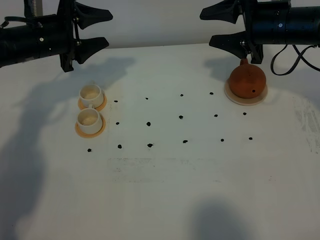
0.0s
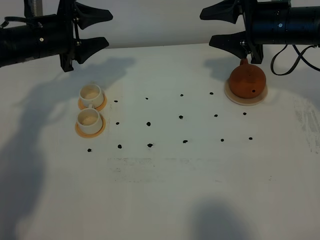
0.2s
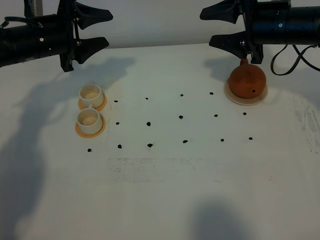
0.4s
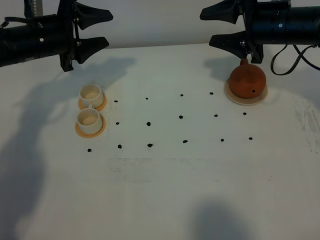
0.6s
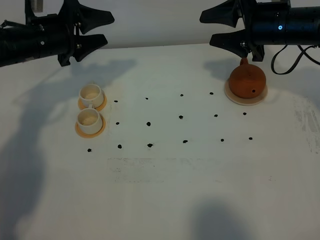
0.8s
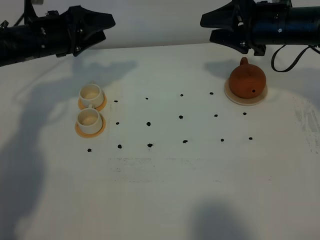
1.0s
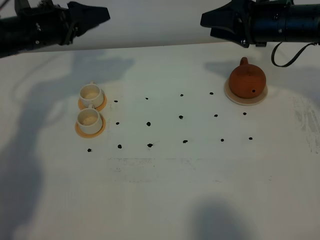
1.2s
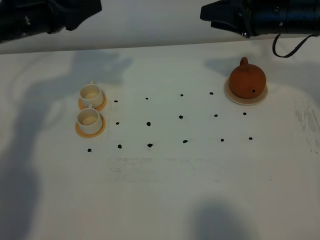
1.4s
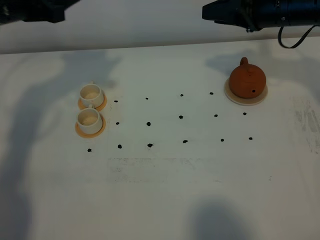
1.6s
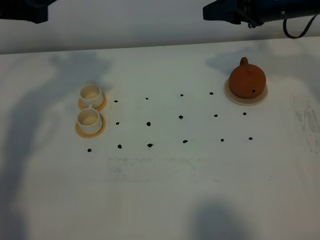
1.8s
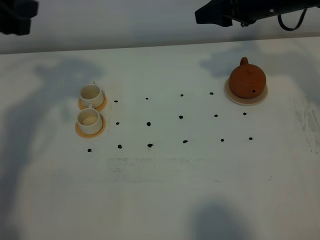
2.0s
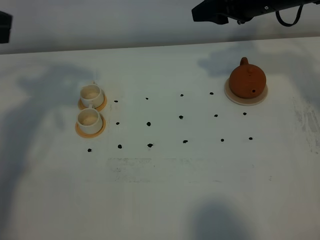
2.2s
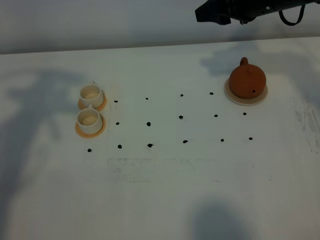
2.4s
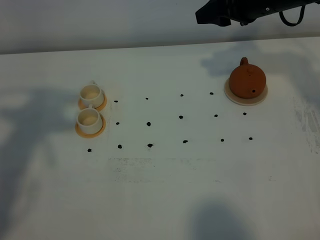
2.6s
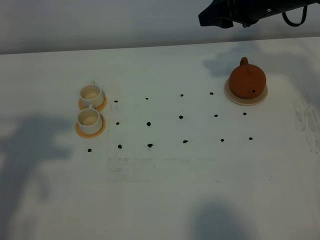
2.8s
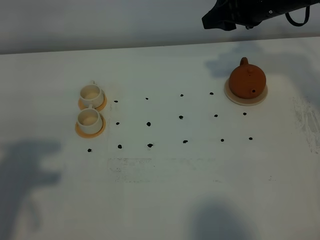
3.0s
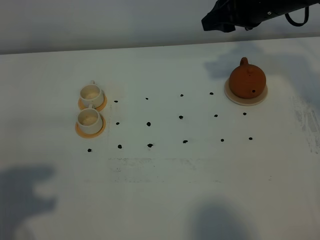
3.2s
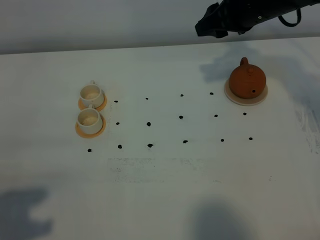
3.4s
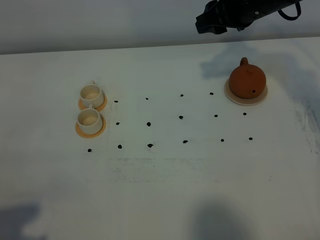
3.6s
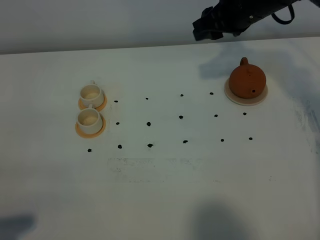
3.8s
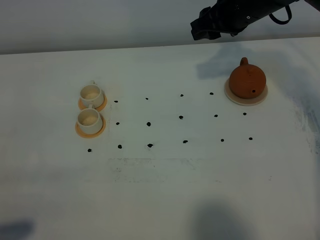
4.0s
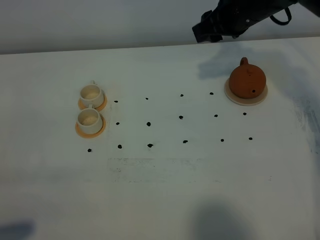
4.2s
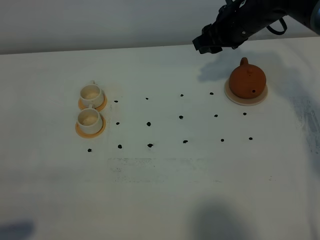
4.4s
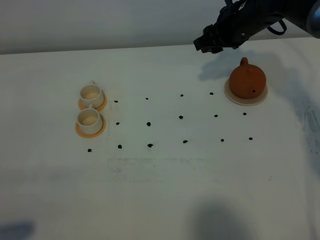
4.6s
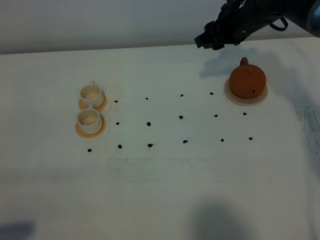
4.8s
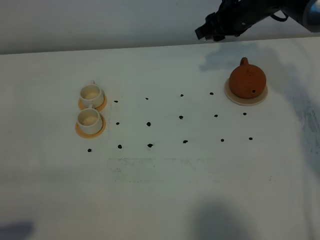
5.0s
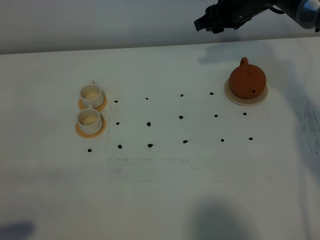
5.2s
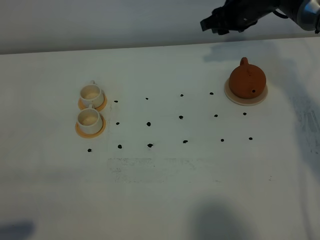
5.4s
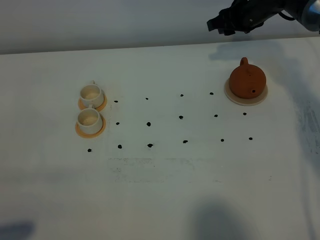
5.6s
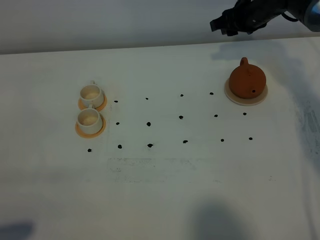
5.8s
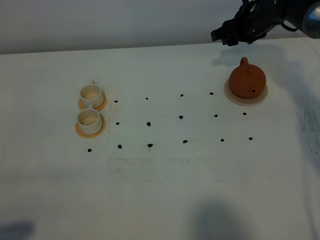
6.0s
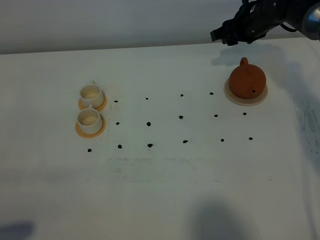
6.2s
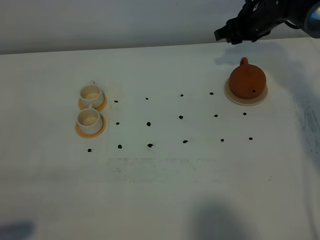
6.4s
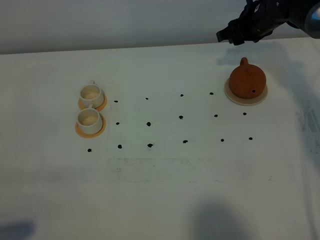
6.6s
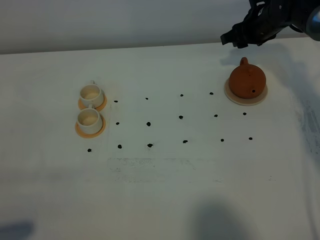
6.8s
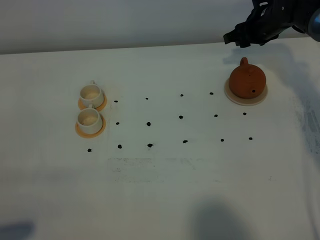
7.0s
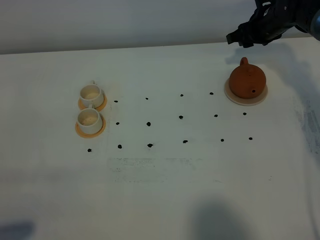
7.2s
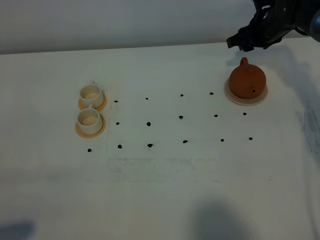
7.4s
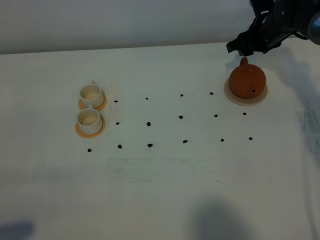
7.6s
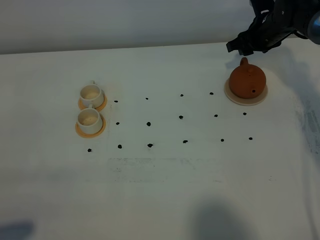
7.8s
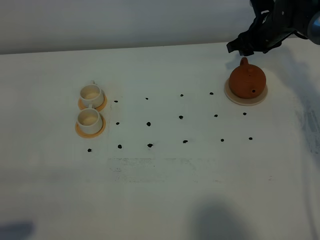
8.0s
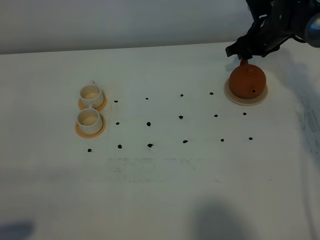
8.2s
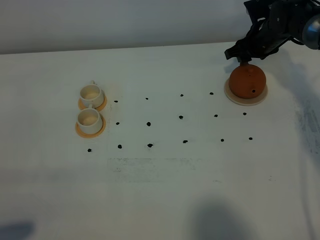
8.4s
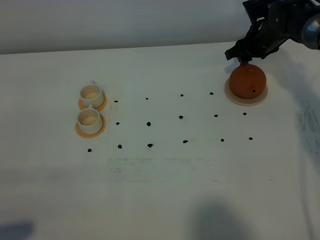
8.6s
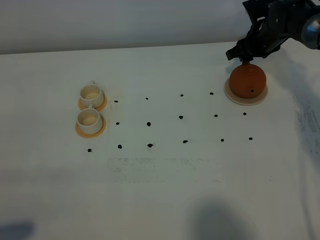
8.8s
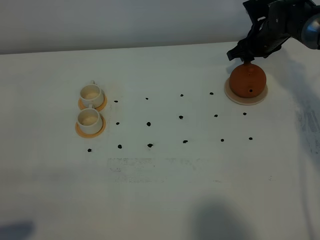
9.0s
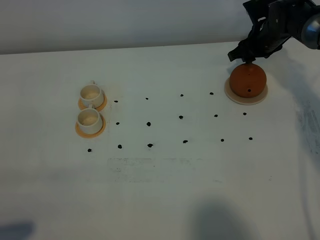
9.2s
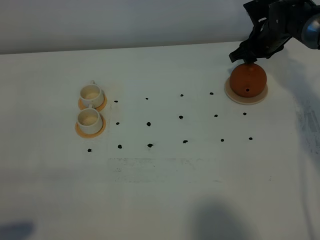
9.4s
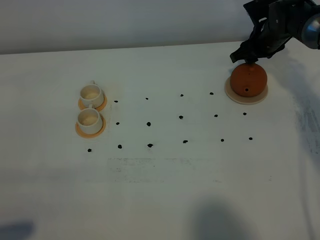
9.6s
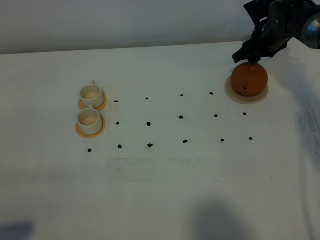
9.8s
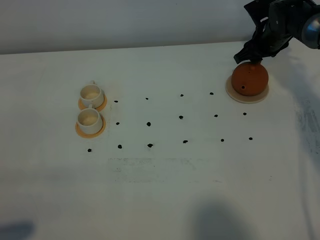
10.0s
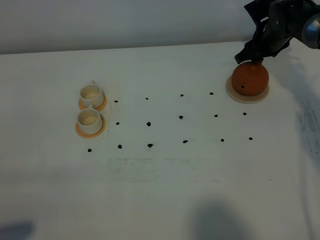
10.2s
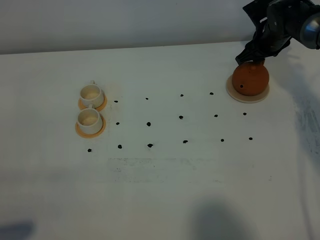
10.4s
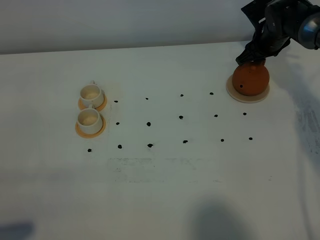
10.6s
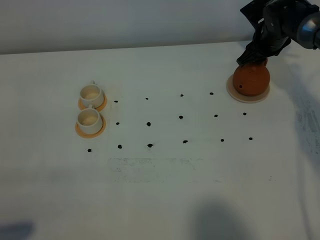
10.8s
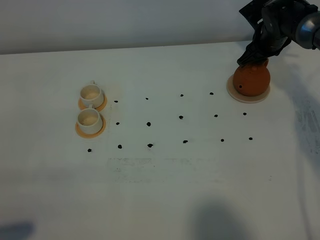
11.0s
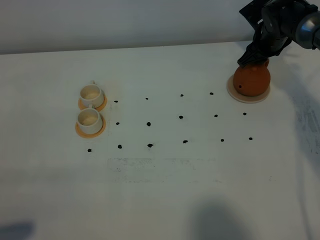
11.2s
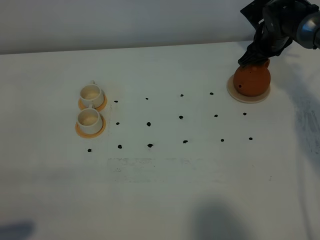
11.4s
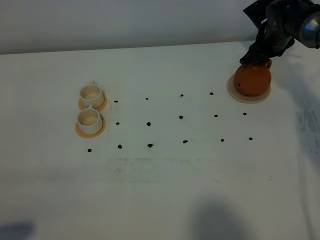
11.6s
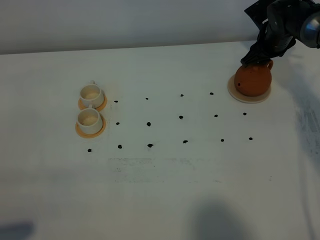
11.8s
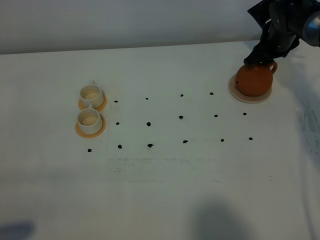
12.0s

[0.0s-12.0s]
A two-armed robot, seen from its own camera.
Task of the whole recording: grasp the brown teapot and pour the tea into the two white teacups one by one, put the brown teapot back in its original place.
0.0s to 1.6s: The left gripper moves upward and backward, some 15 cm.
1.6s to 3.0s: The left gripper heads backward, covering roughly 25 cm, and closes its fingers.
3.0s to 4.4s: The left gripper travels backward and downward by some 15 cm. Meanwhile the right gripper shifts about 5 cm downward.
4.4s to 6.0s: The right gripper moves forward, roughly 5 cm.
6.0s to 9.0s: The grippers move only a little.
9.0s to 12.0s: The grippers stay close to where they were, moving slightly.

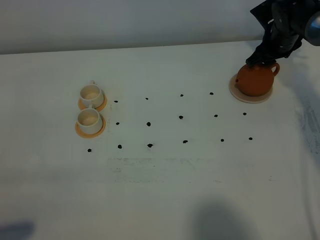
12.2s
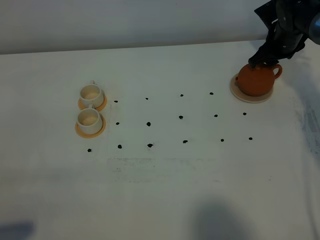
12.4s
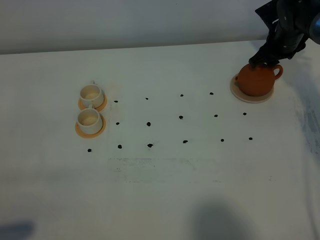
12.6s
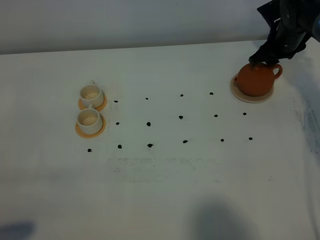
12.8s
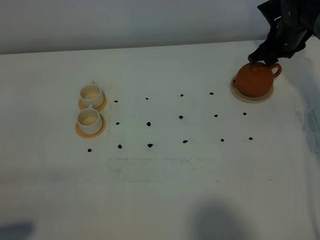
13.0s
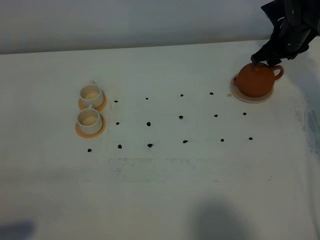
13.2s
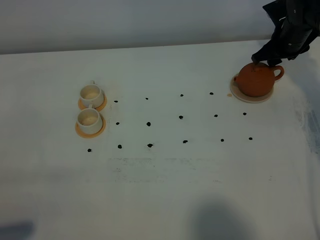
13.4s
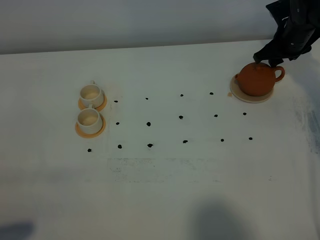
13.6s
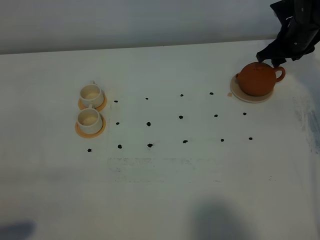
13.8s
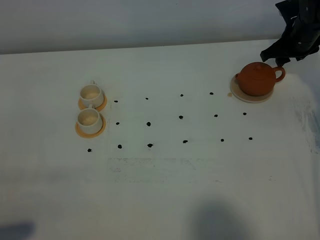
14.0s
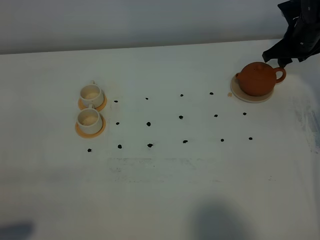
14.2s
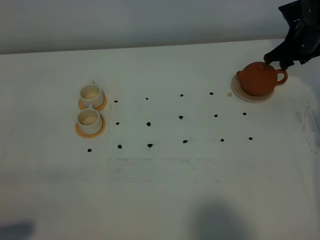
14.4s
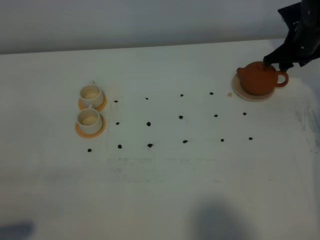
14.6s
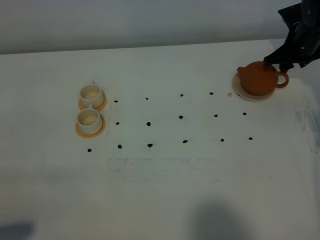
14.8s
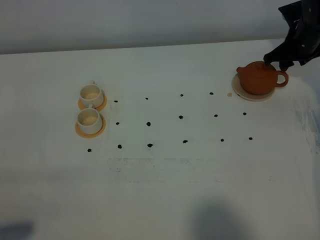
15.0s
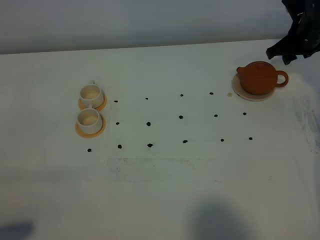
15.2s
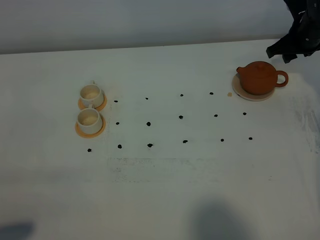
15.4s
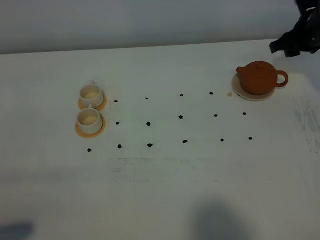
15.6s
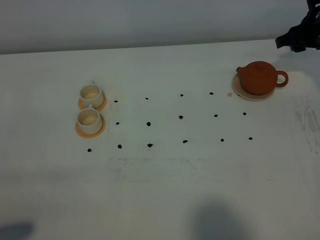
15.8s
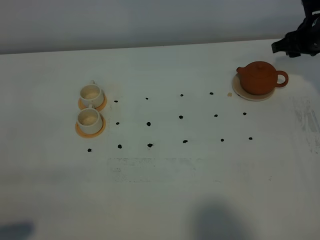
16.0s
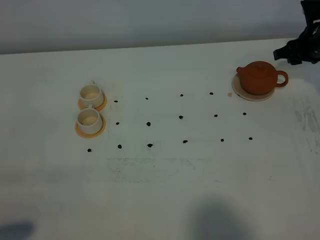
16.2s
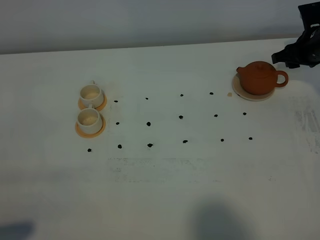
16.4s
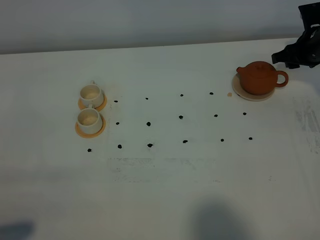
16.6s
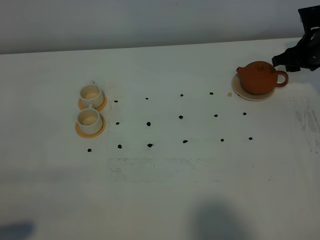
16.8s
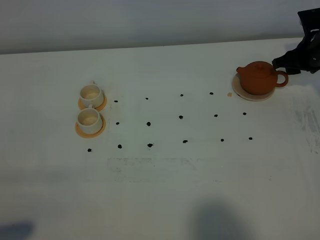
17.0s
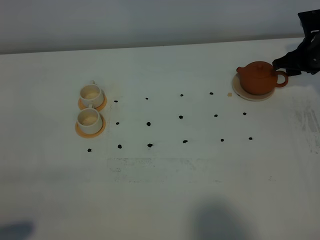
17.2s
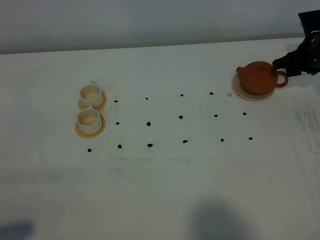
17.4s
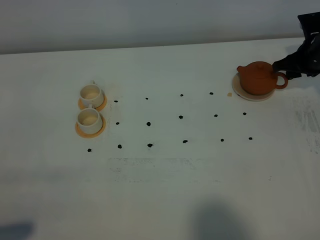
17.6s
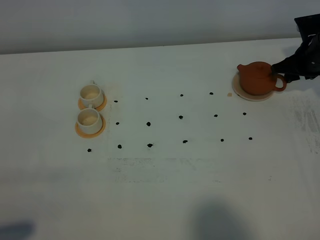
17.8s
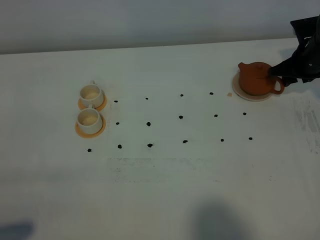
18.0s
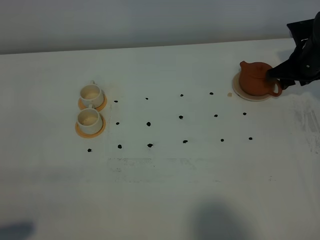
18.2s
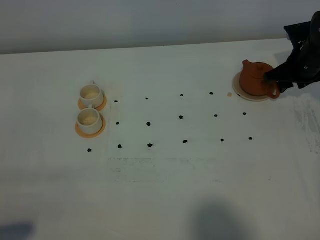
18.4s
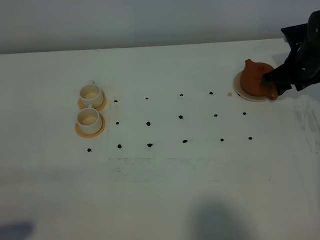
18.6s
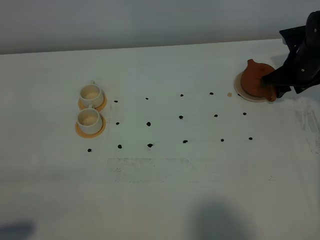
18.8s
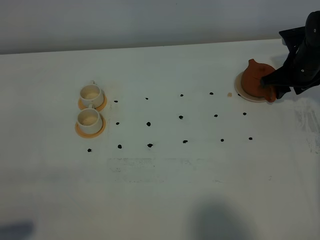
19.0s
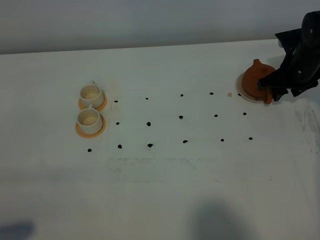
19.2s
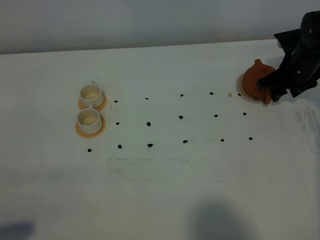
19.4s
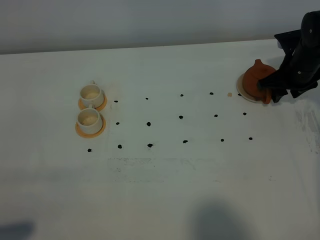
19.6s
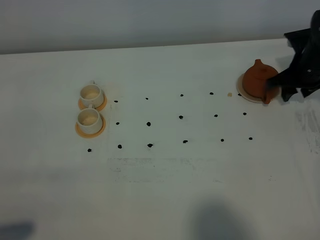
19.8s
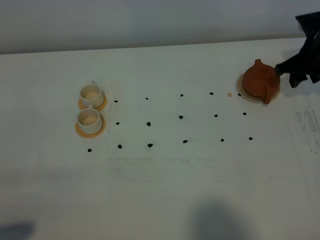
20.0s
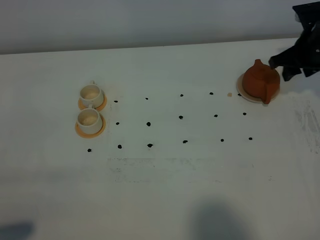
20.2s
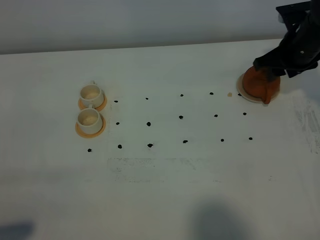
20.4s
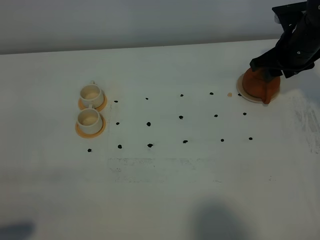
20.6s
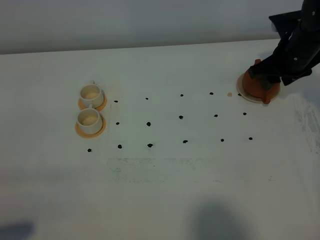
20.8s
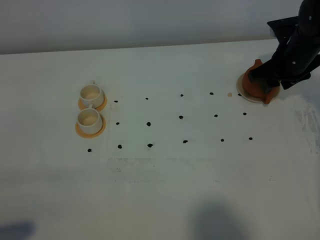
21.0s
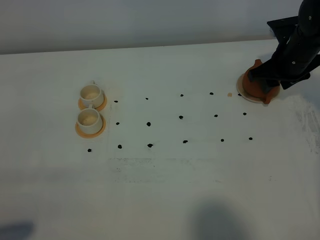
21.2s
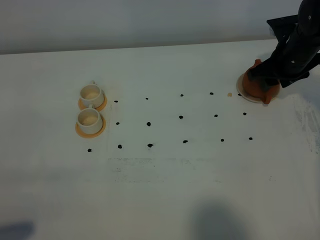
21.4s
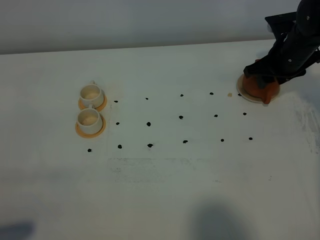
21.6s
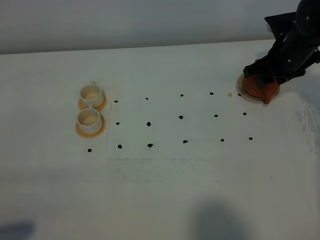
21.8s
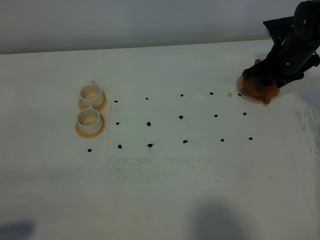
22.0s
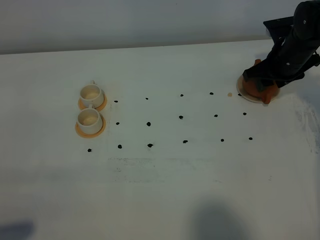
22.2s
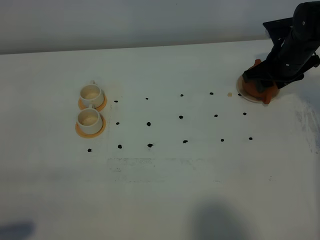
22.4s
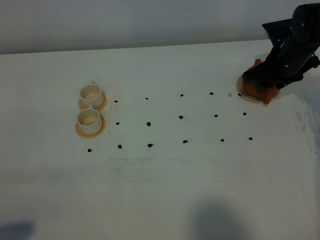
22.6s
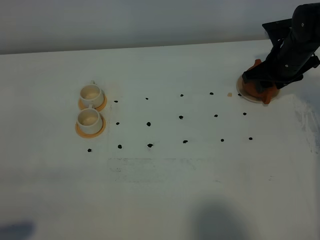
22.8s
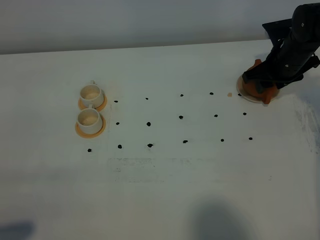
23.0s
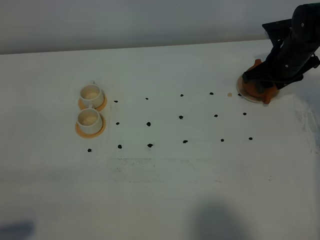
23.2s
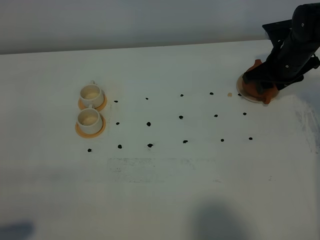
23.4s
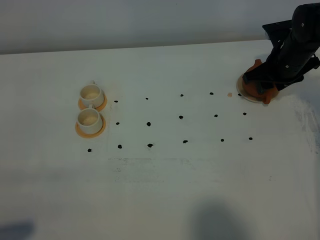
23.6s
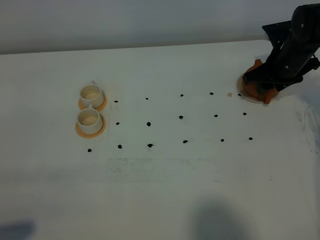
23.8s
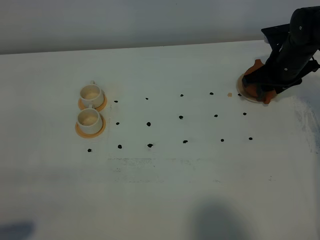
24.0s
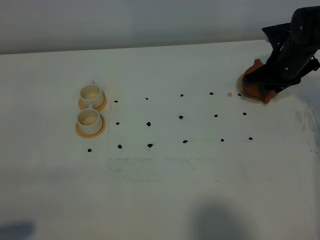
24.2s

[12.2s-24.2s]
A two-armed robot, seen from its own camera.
Task of the whole recording: grasp the brown teapot and pour the tea into the two white teacups one by one, put the brown teapot back in its original place.
12.2s to 15.2s: The grippers move only a little.
15.2s to 18.2s: The grippers make only small movements.
18.2s to 19.8s: The grippers make only small movements.
19.8s to 21.2s: The right gripper changes place by some 5 cm.
21.2s to 22.6s: There are only small adjustments of the grippers.
22.6s to 24.2s: The right gripper closes its fingers.
